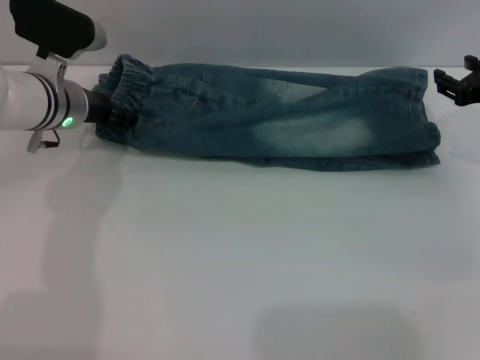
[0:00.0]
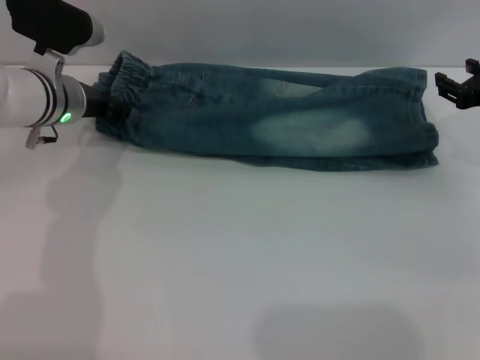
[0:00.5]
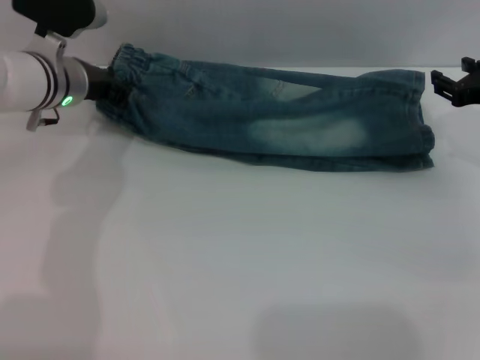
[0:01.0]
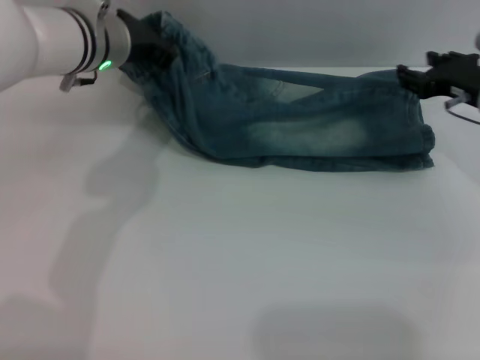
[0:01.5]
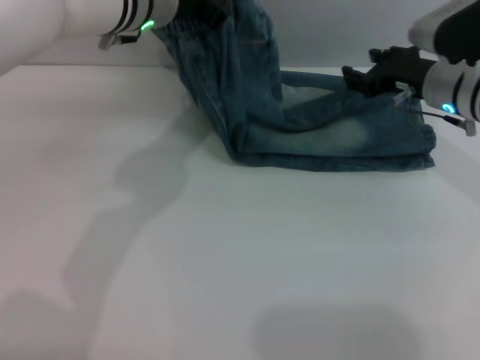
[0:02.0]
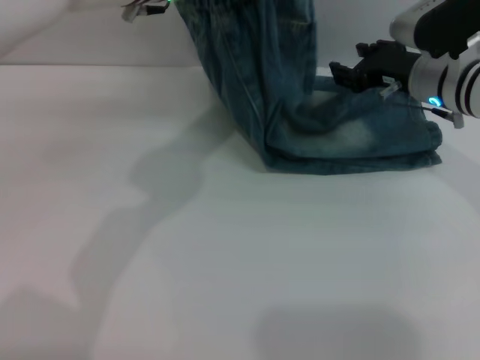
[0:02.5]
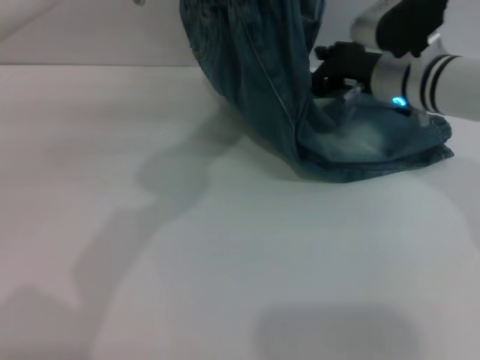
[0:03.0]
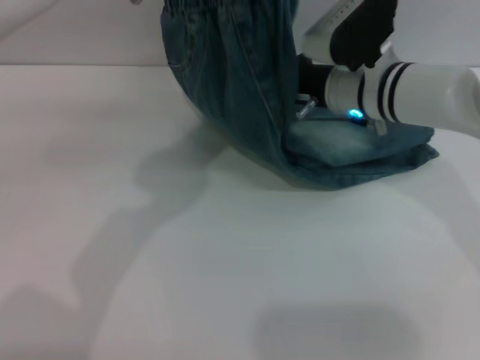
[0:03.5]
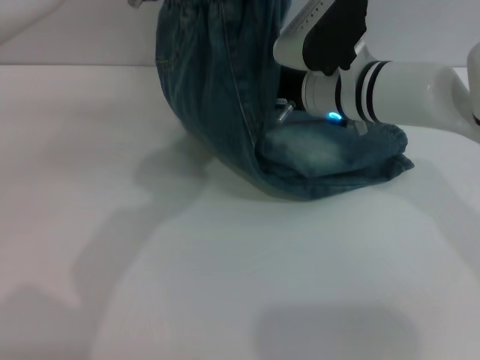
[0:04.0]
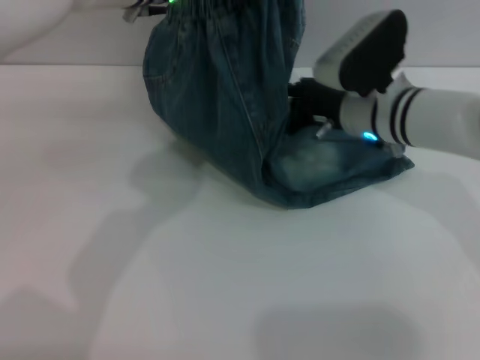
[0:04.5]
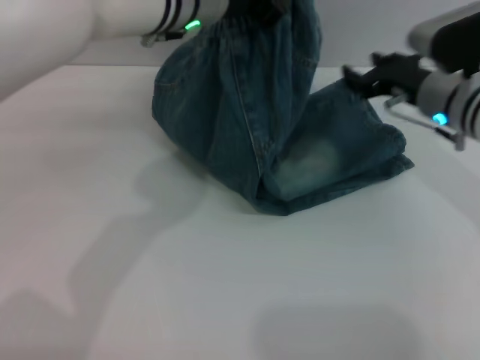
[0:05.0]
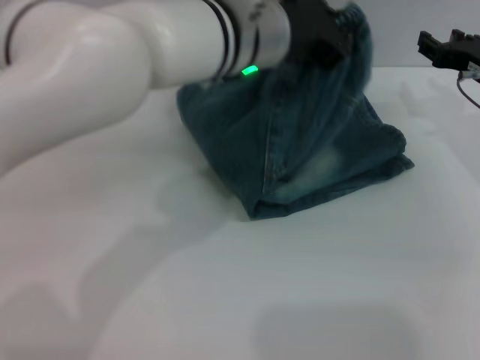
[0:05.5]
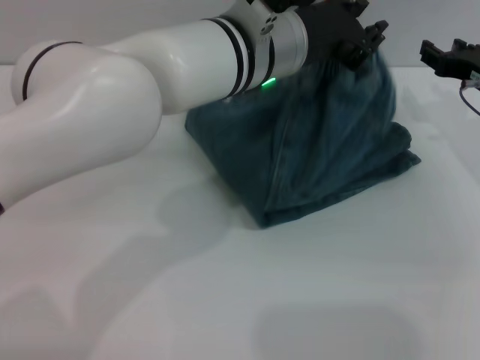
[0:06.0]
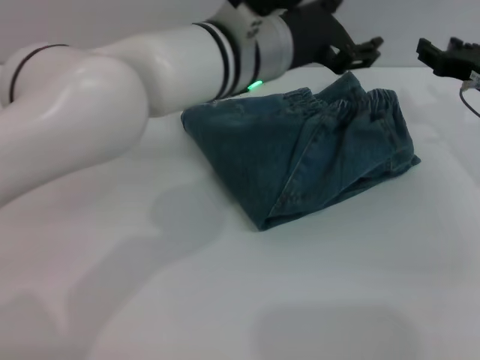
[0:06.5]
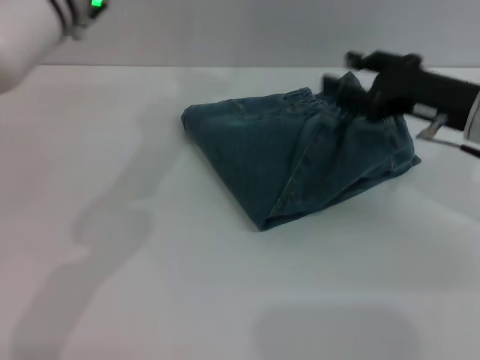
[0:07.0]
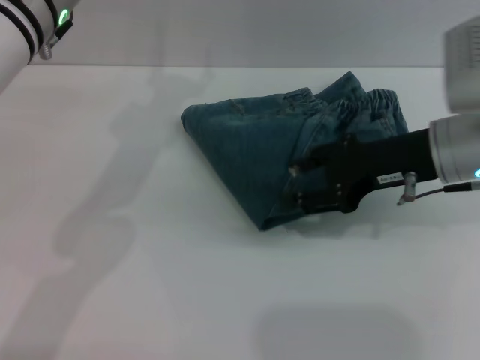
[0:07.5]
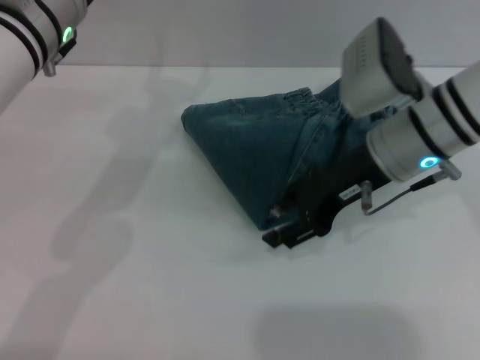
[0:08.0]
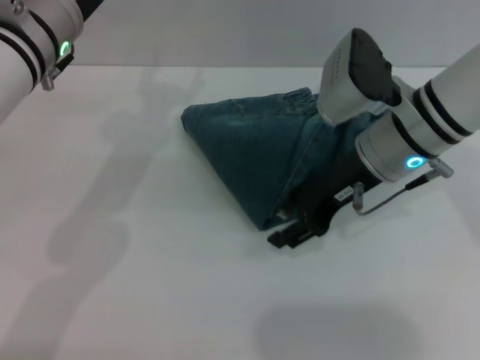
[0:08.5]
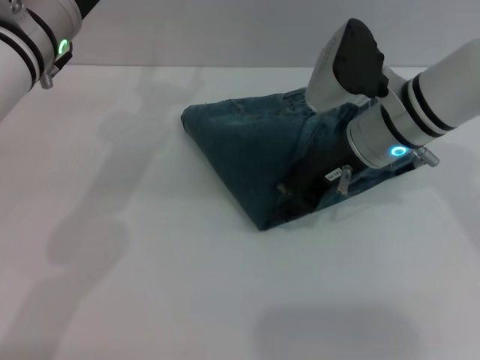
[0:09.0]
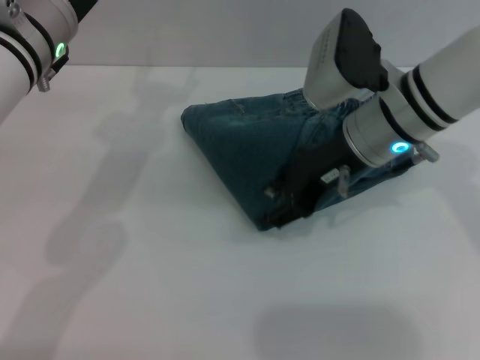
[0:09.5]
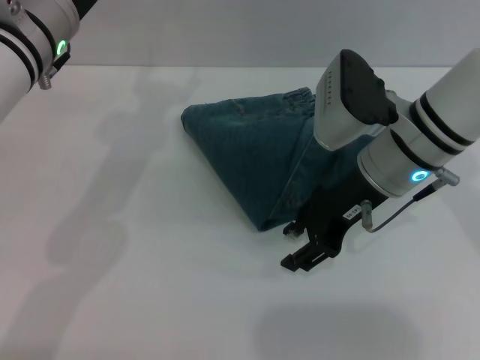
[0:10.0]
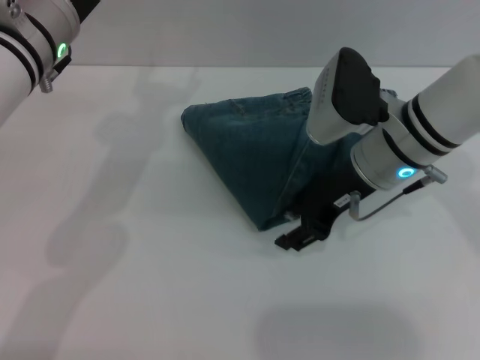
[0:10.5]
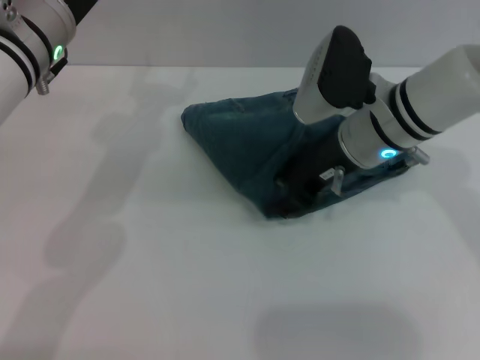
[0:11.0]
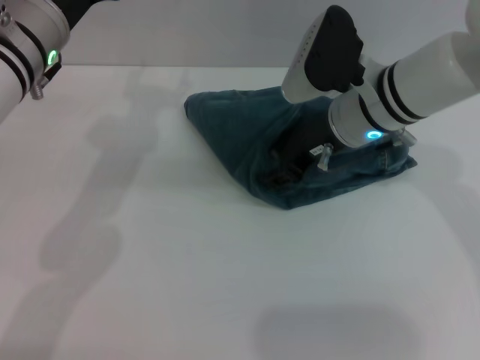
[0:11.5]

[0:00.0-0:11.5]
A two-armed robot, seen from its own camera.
Step, 0:00.0 to 0:06.5: Fold the pants from left to right with the left gripper.
0:00.0 to 0:02.0: The right gripper shifts about 10 cm to the left; the left gripper is displaced upward and to the right by roughly 15 cm, and closes.
0:02.0 to 0:04.0: The left gripper moves roughly 5 cm. Meanwhile the right gripper travels to the left by roughly 10 cm.
0:04.0 to 0:06.0: The right gripper goes approximately 20 cm to the right. Meanwhile the left gripper travels downward and to the right by roughly 10 cm.
0:06.0 to 0:07.5: The right gripper is displaced to the left, backward and upward by about 10 cm; the left gripper travels to the left by some 15 cm, and opens its fingers.
0:07.5 to 0:09.5: The right gripper moves to the left, about 5 cm.
0:09.5 to 0:11.5: The grippers move only a little.

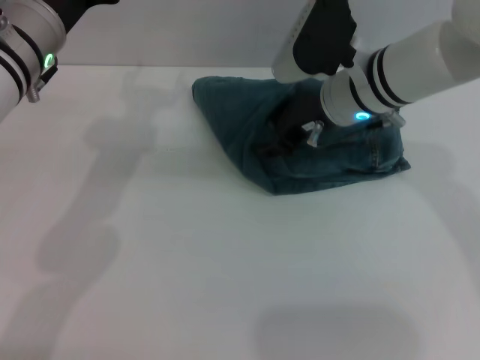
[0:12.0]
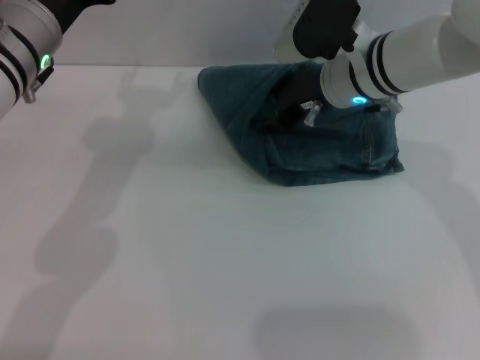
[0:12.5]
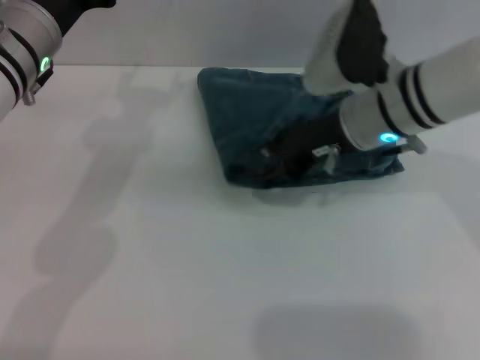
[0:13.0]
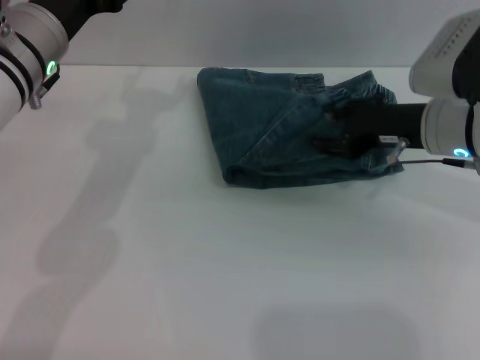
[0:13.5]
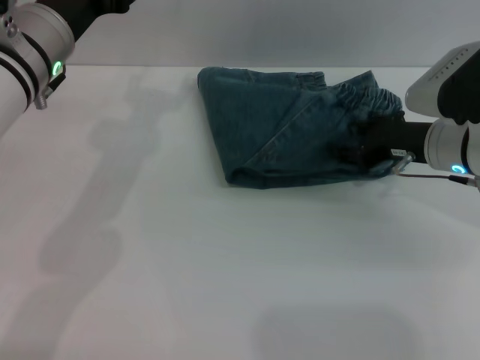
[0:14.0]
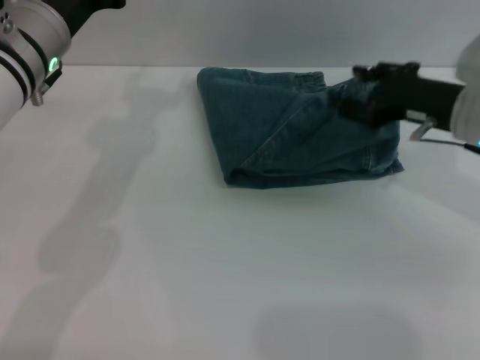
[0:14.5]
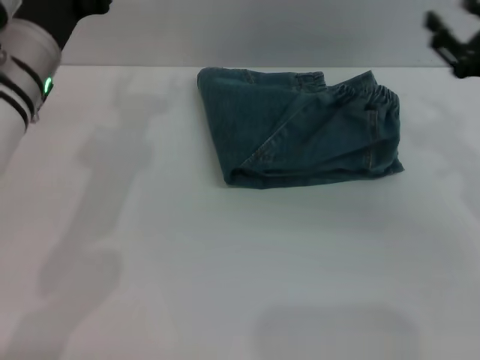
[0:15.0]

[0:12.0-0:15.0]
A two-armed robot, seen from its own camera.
0:12.0 to 0:13.5: The right gripper moves to the right and backward, about 10 cm.
0:13.5 to 0:15.0: The right gripper is displaced to the right by some 10 cm.

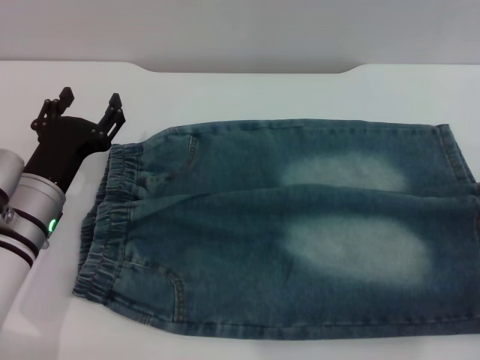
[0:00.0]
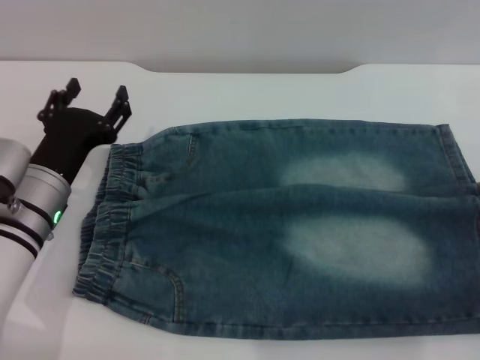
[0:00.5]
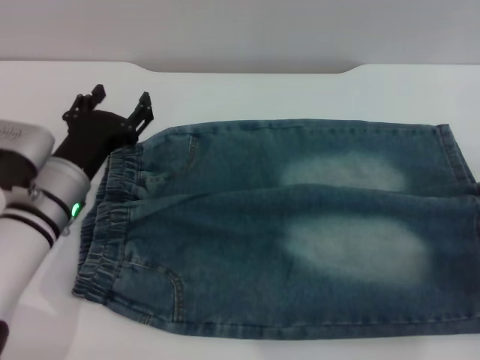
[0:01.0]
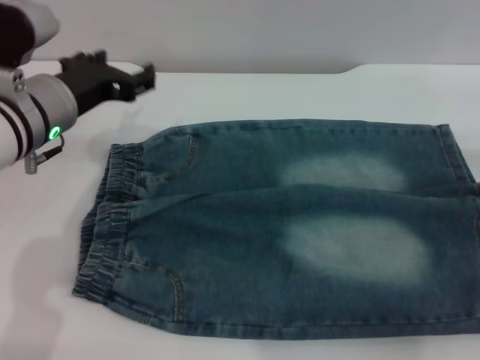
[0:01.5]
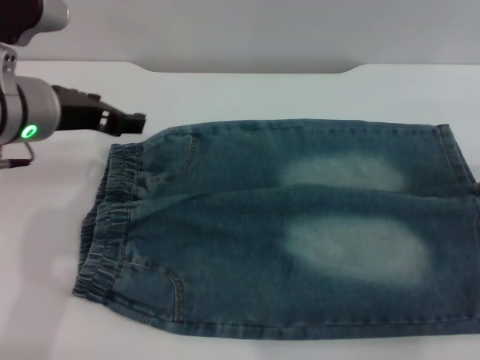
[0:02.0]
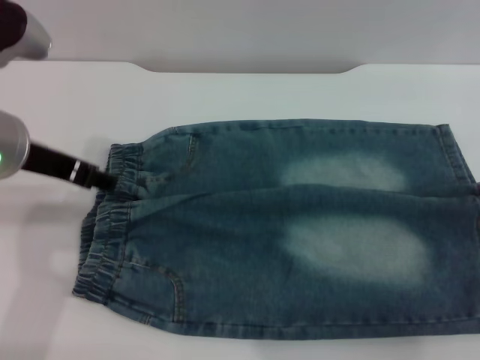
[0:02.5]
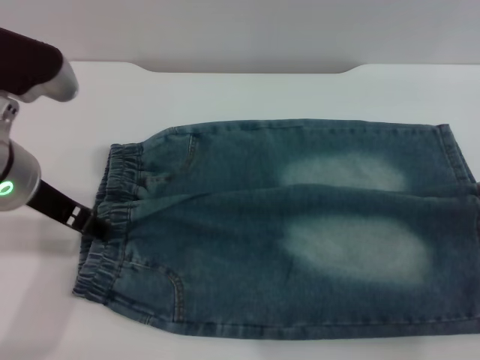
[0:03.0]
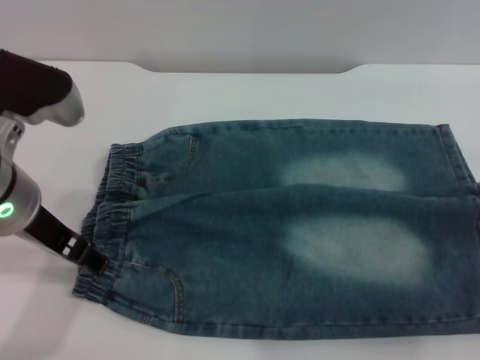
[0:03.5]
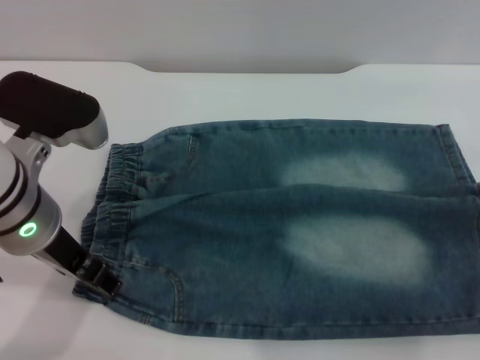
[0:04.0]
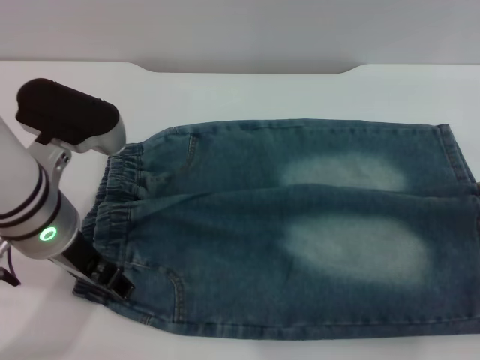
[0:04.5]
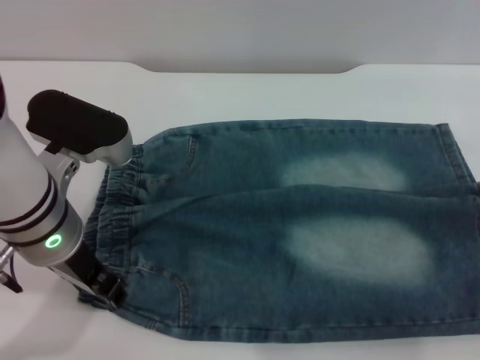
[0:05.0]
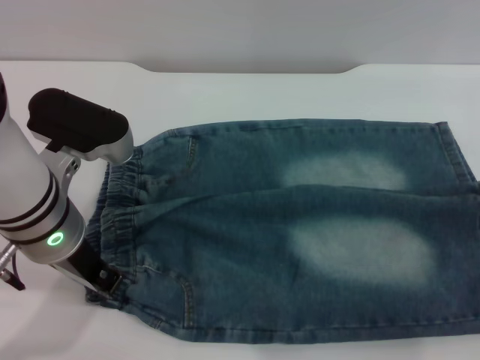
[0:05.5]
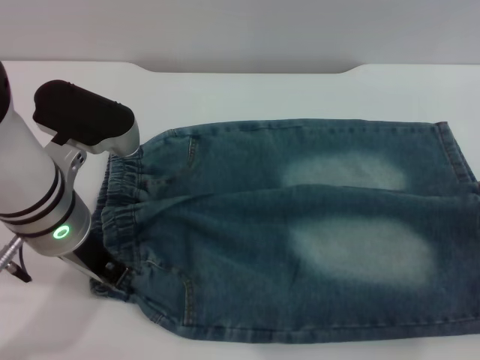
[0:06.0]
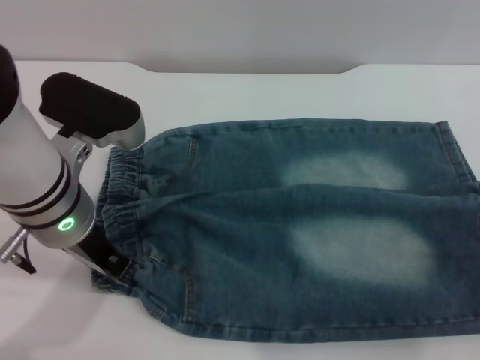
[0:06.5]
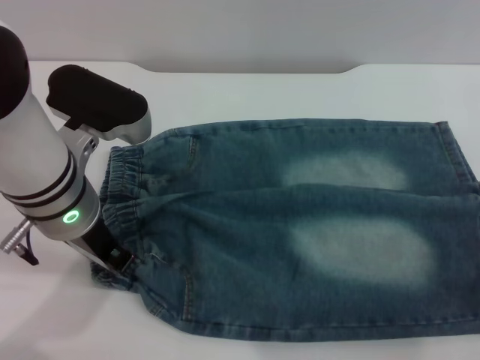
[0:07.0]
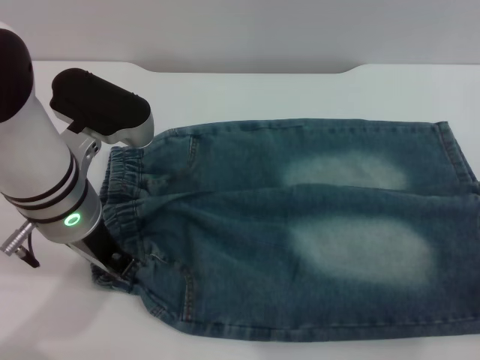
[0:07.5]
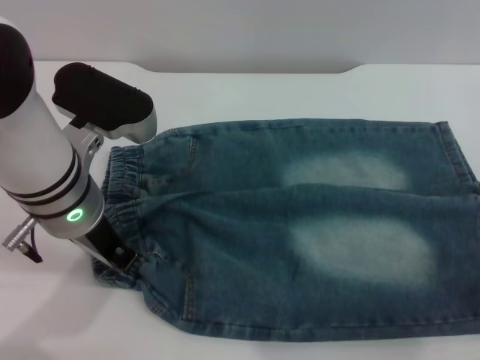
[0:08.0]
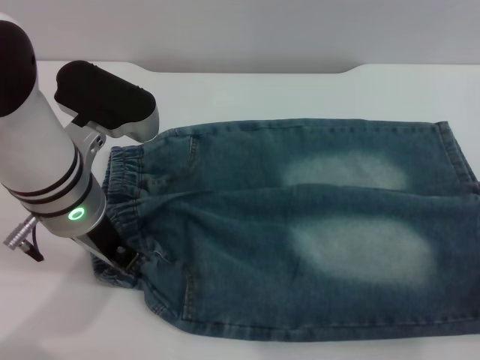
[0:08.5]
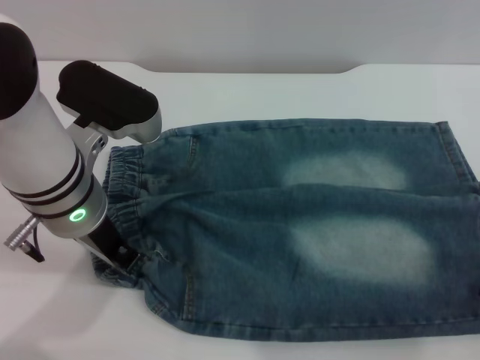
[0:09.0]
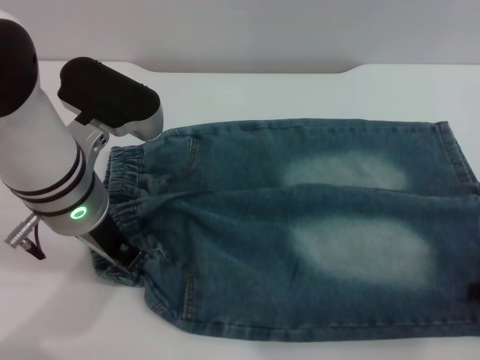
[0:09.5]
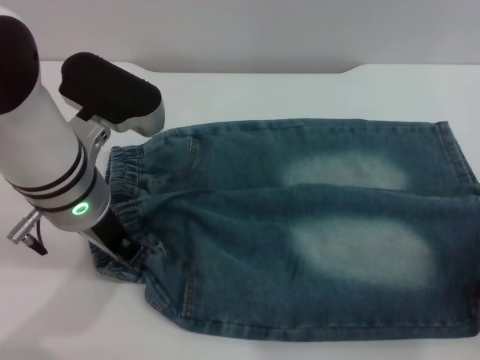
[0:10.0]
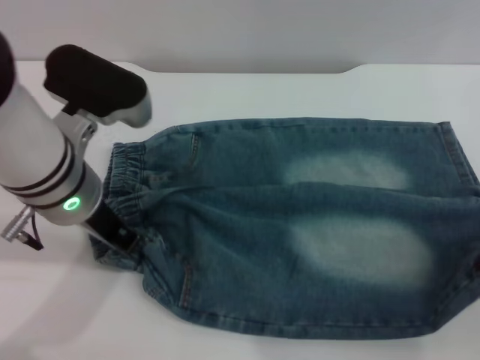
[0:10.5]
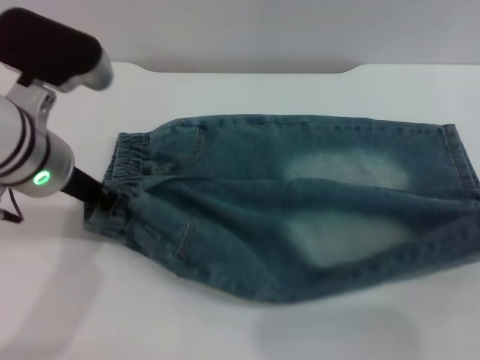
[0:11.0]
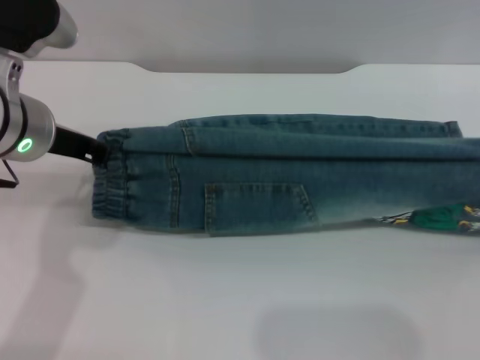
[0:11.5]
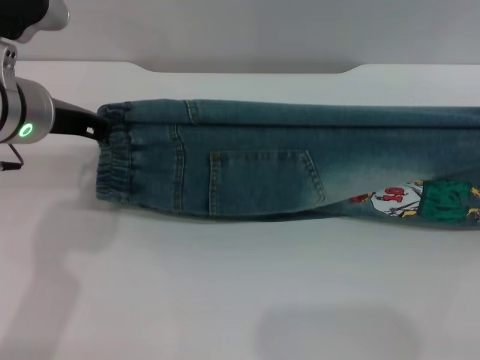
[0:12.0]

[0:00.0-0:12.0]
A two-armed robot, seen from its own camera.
0:00.0 to 0:02.0: The left gripper travels upward by approximately 15 cm.
0:02.0 to 0:04.0: The left gripper travels backward by some 5 cm.
0:04.0 to 0:06.0: The left gripper closes up.
0:06.0 to 0:08.0: The right gripper travels downward by about 5 cm.
0:08.0 to 0:10.0: The right gripper closes up.
0:10.0 to 0:12.0: The left gripper goes some 5 cm to the left. Meanwhile the right gripper moves upward and forward, some 10 cm.
